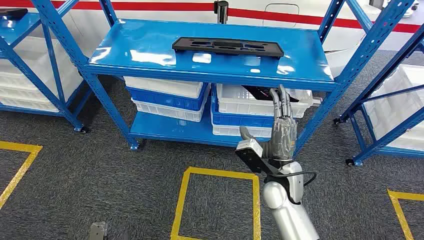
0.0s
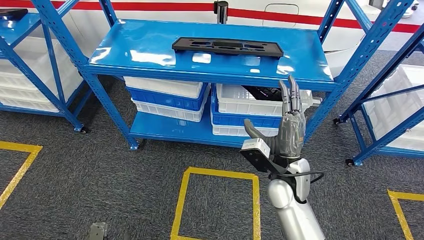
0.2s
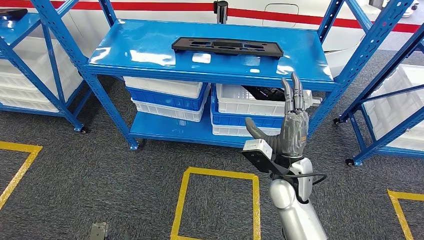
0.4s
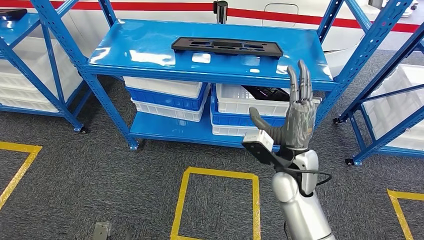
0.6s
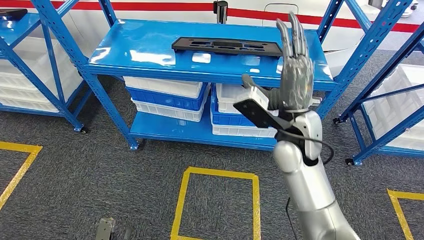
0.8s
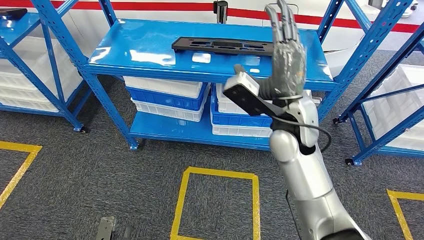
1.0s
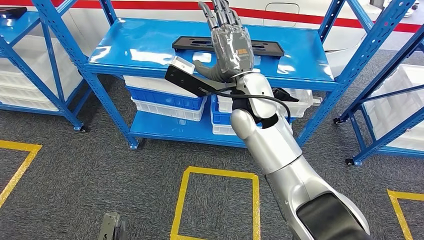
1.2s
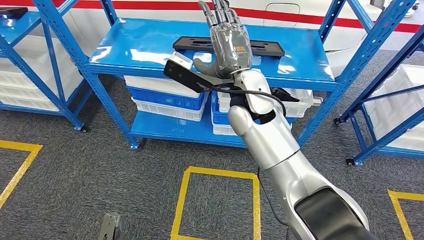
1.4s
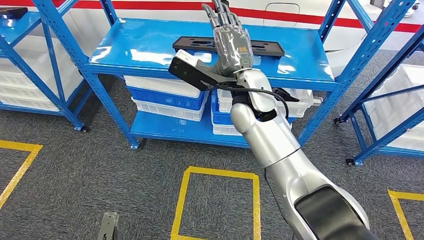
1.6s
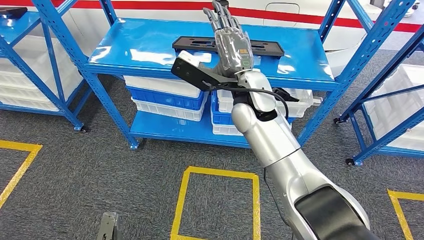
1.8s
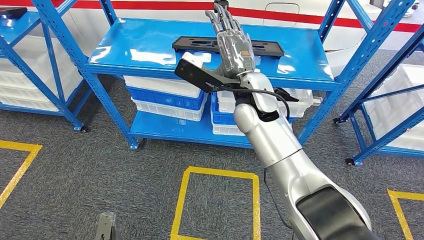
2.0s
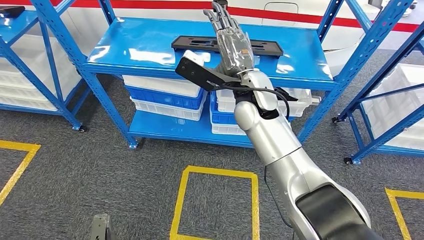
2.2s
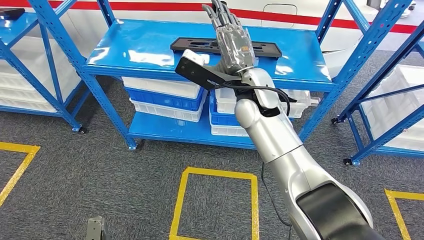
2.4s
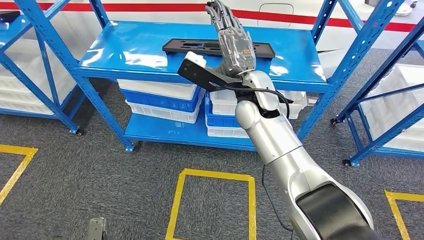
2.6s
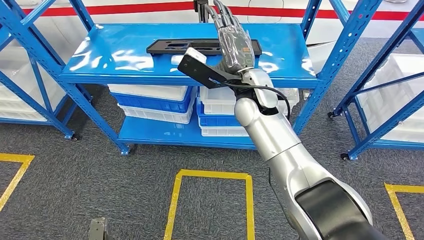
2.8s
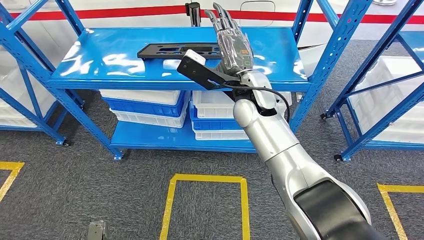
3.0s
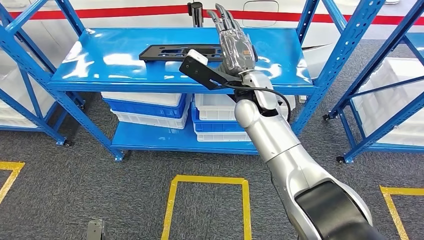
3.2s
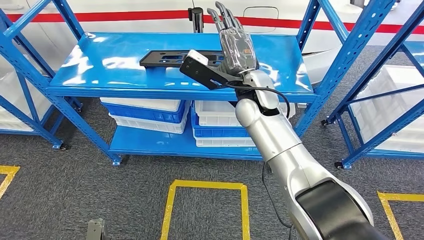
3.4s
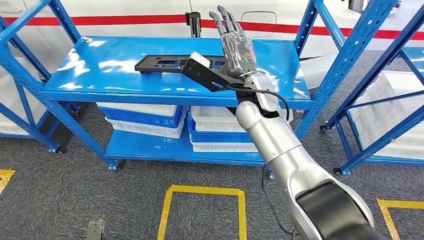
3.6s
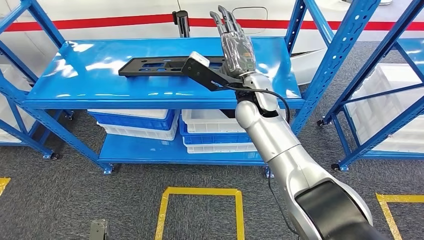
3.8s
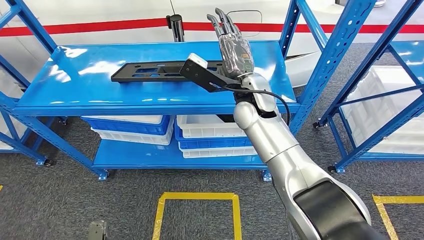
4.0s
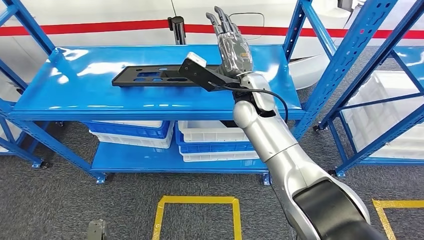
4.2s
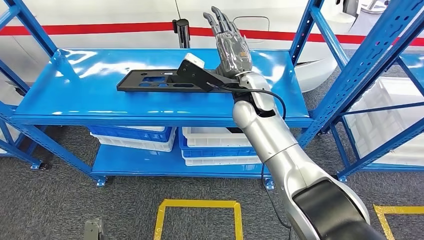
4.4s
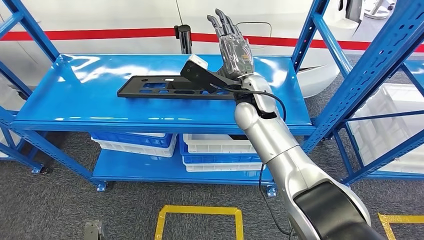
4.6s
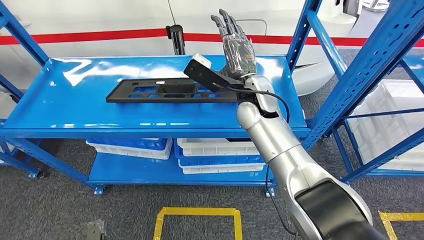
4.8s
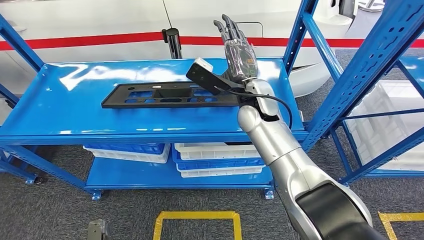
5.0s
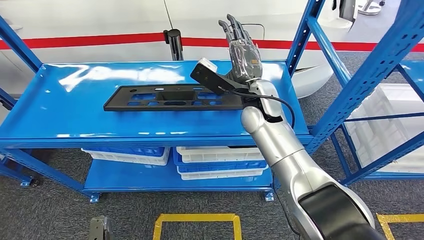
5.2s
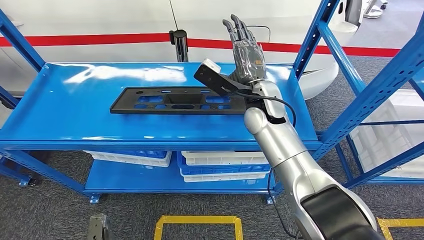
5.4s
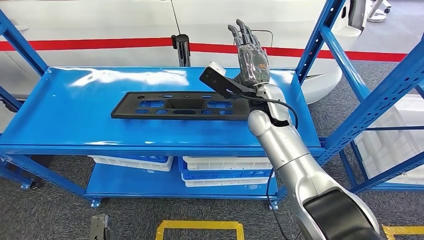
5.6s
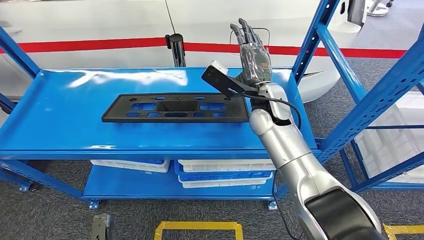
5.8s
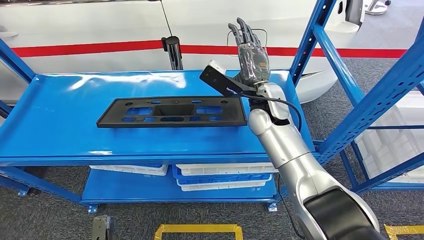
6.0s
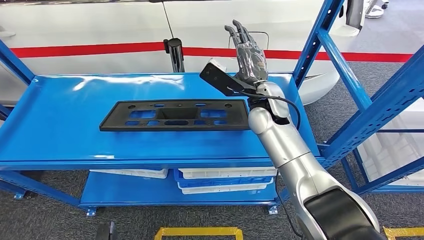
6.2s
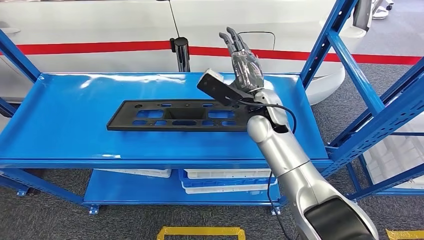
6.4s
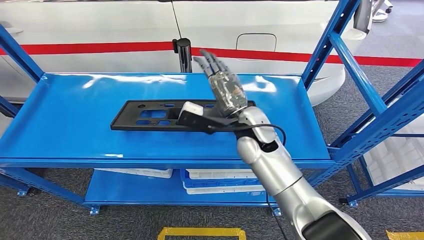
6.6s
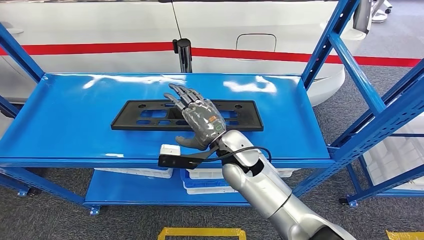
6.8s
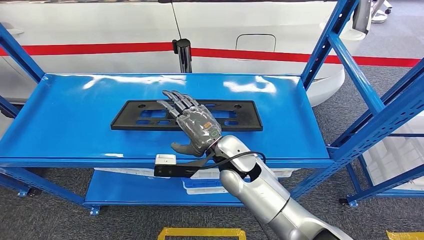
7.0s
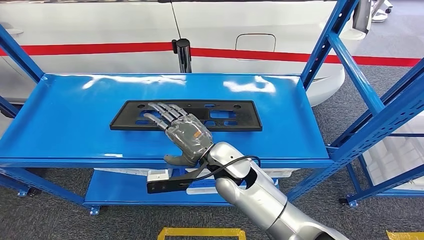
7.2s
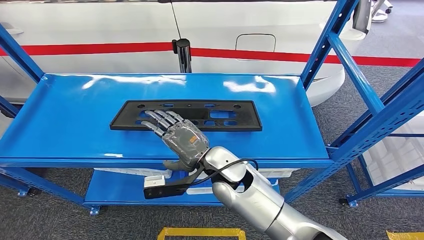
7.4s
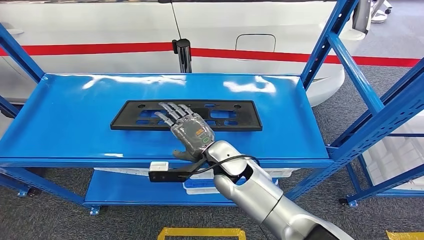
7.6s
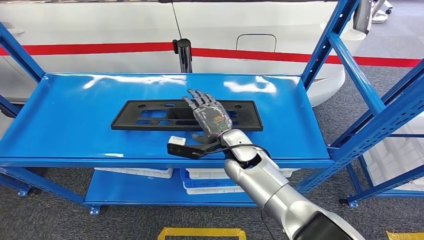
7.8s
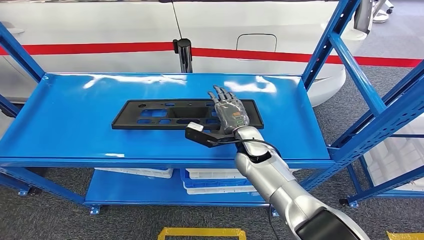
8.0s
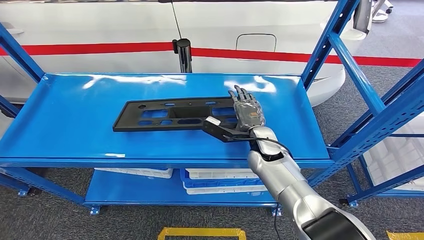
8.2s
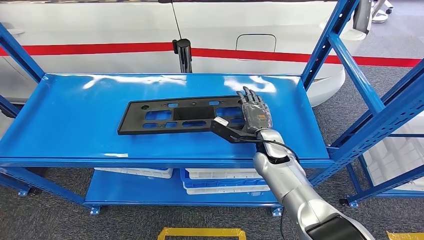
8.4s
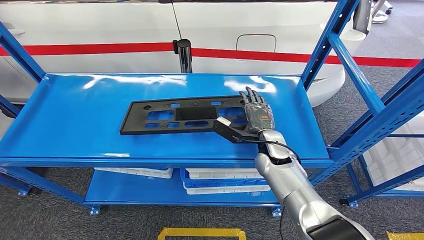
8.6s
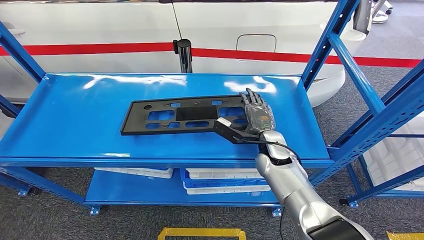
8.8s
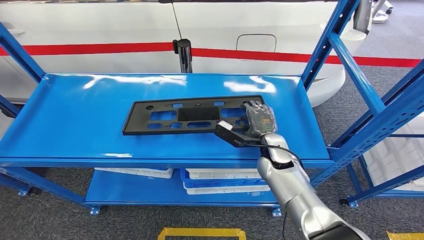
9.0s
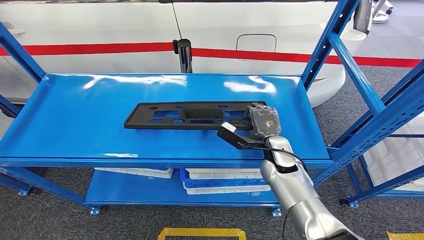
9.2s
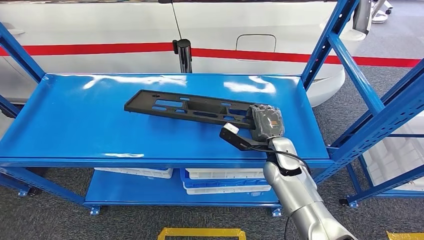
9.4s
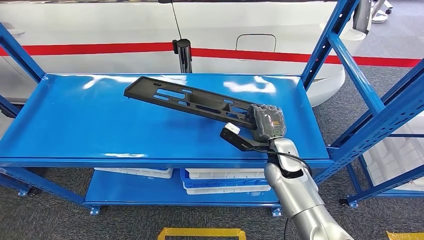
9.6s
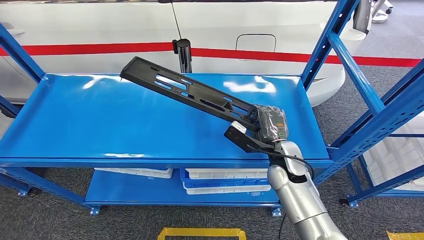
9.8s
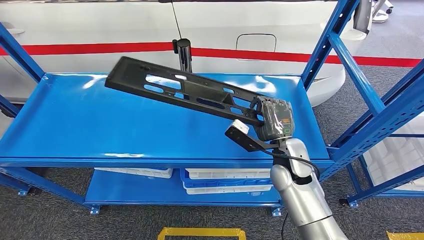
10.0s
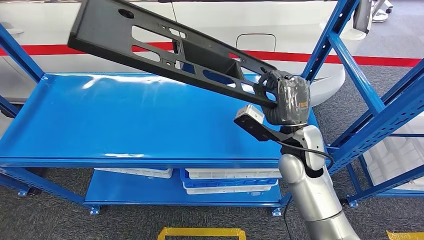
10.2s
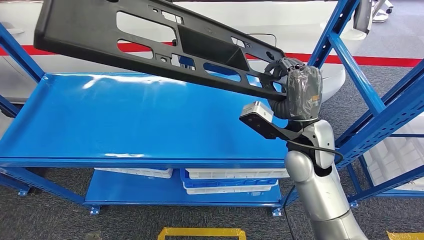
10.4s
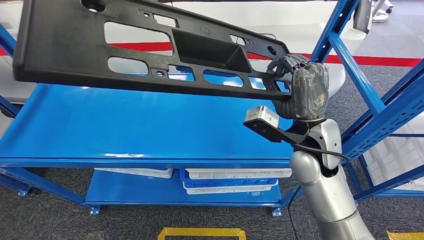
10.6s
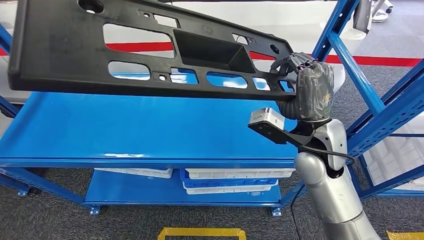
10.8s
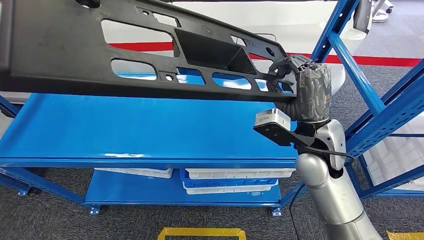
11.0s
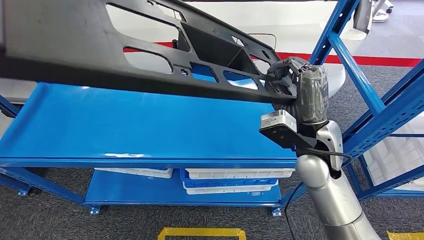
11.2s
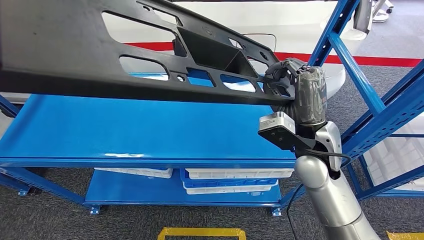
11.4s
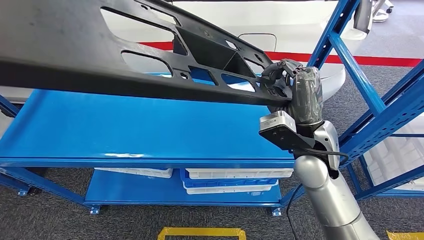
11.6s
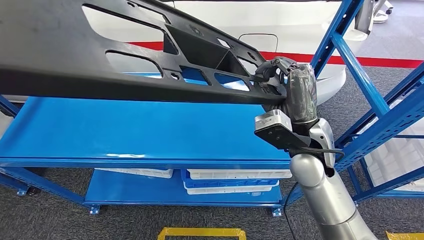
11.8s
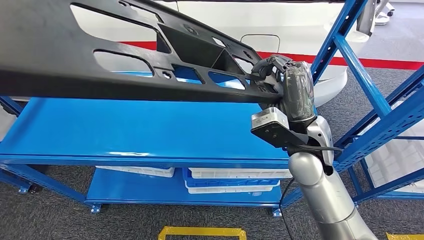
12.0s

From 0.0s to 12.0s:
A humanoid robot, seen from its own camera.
From 7.6s to 9.0s: The right hand shifts about 15 cm to the right and forward.

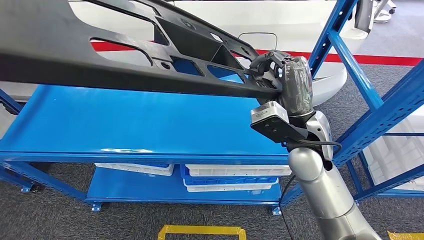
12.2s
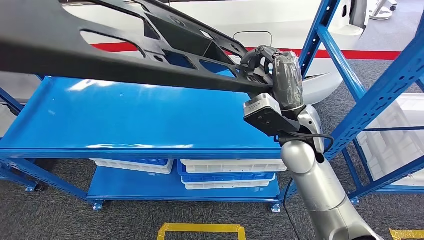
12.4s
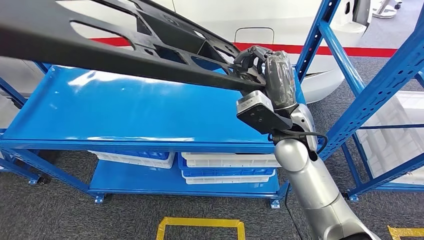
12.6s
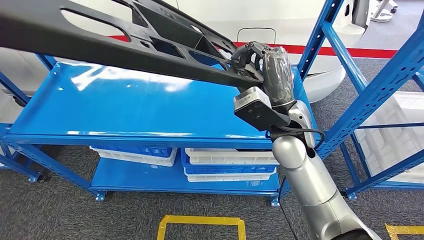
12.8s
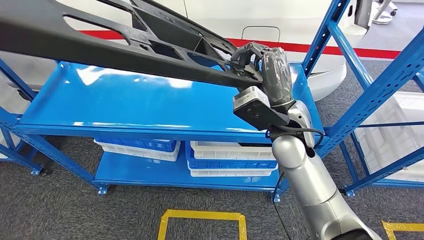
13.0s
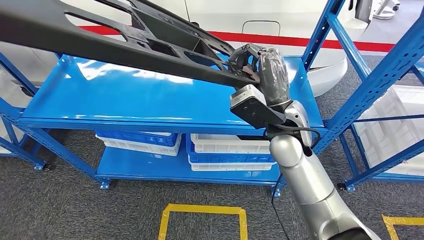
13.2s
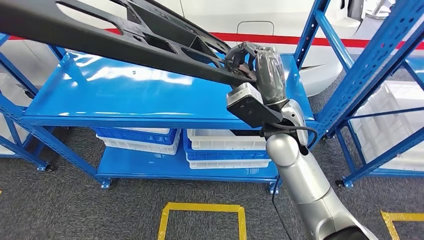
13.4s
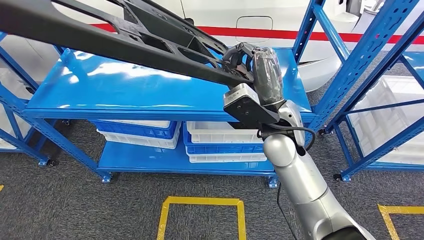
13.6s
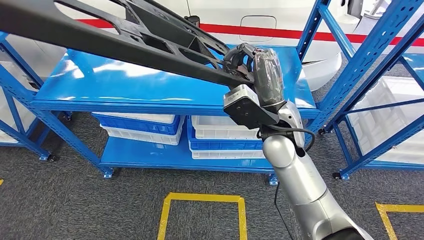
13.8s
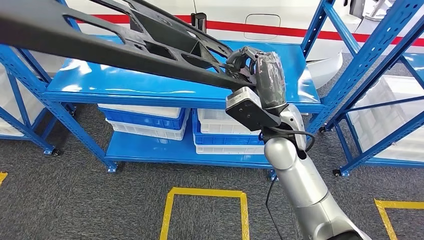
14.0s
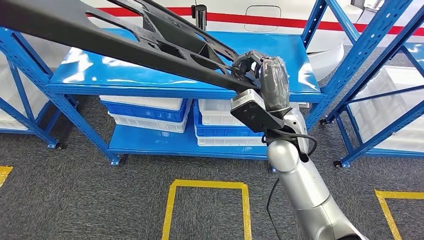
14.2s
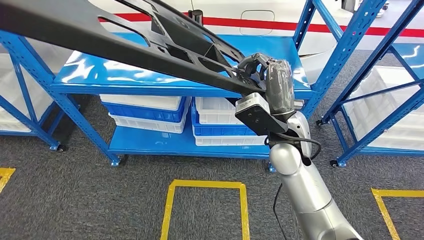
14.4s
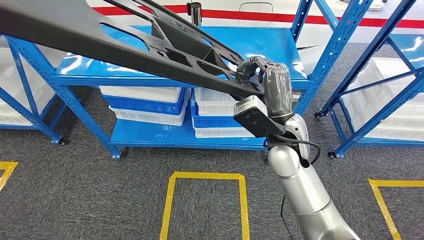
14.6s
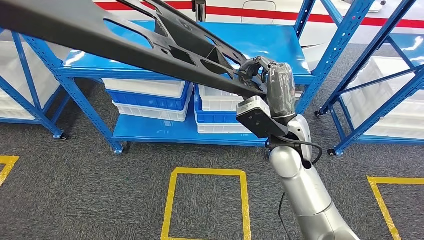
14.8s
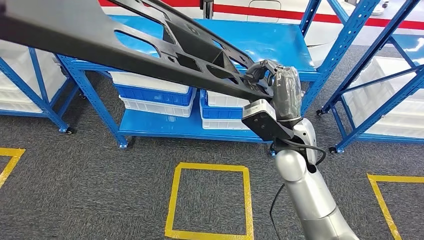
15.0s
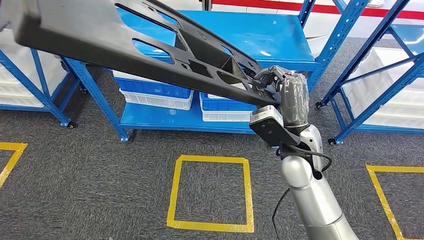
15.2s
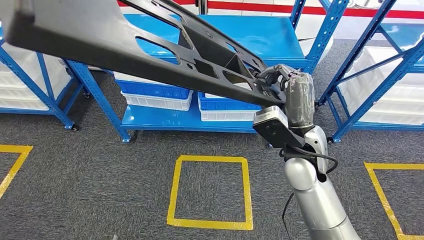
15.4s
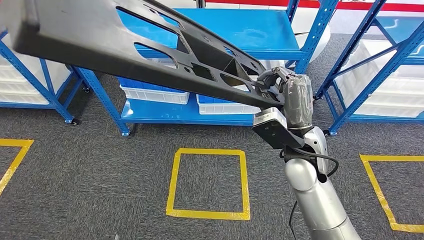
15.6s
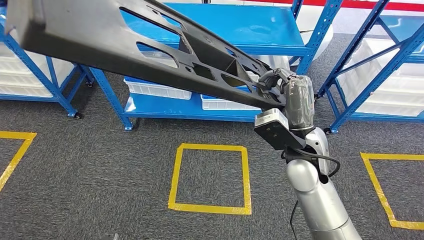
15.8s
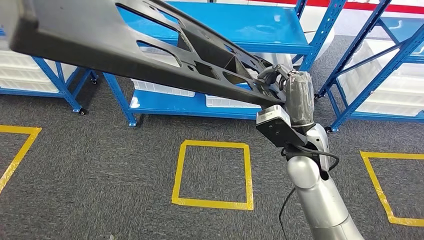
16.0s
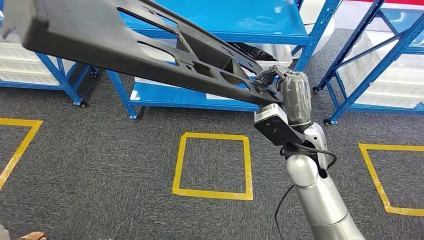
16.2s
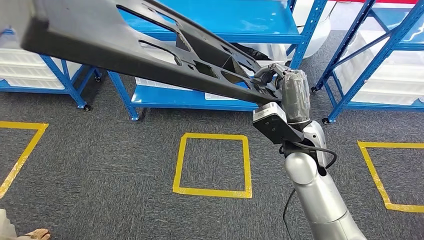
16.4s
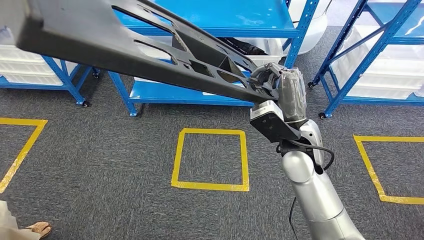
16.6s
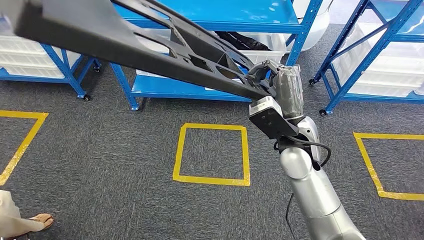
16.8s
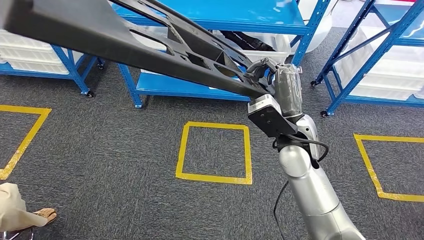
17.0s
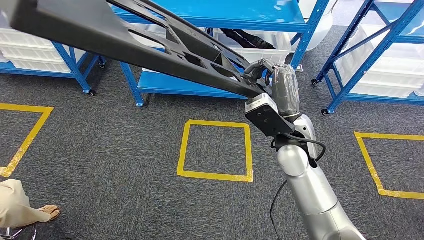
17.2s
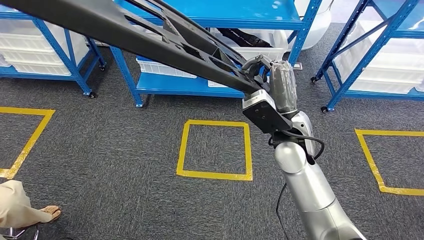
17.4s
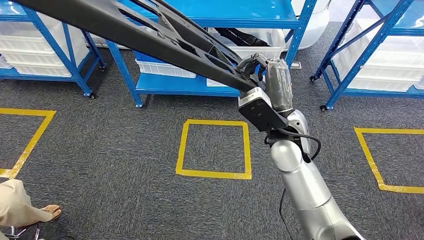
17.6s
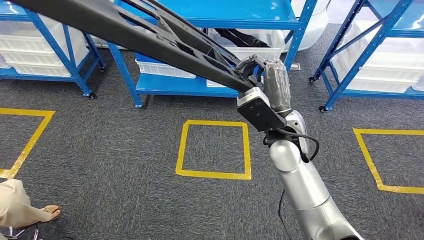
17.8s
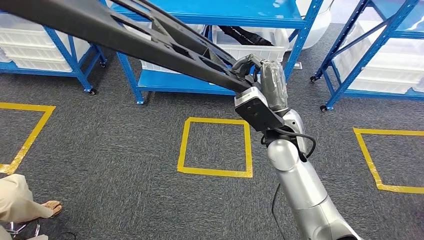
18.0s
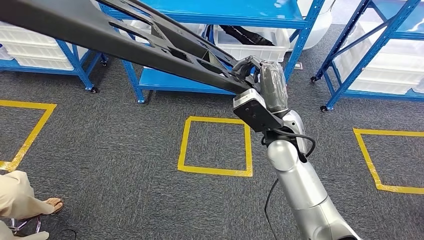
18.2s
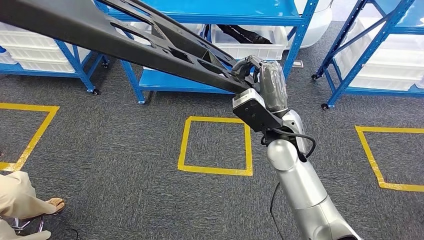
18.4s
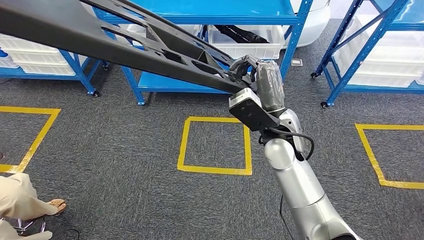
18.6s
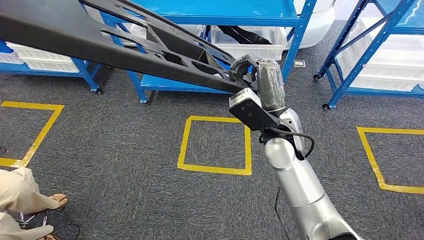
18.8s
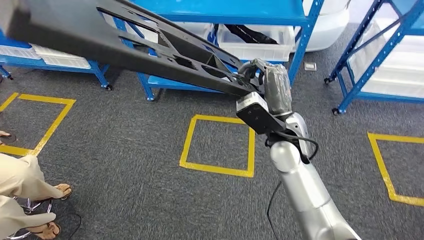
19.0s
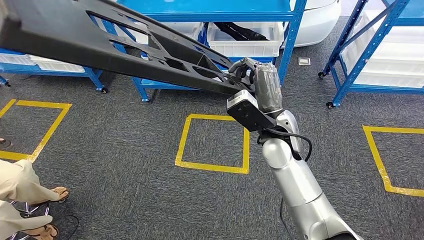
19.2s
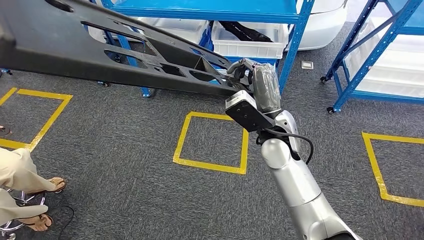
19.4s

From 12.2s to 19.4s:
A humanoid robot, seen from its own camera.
Step, from 12.2s to 17.4s: Pick up the large material from the shelf.
